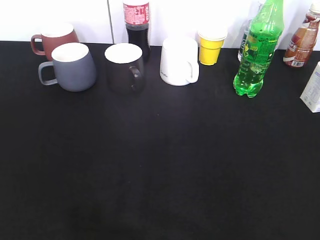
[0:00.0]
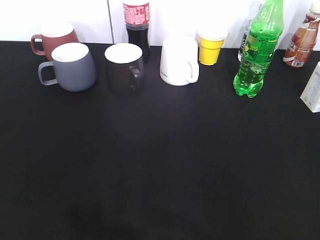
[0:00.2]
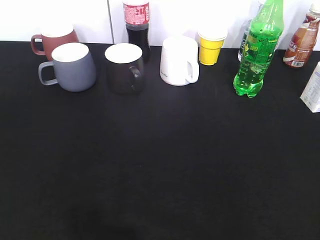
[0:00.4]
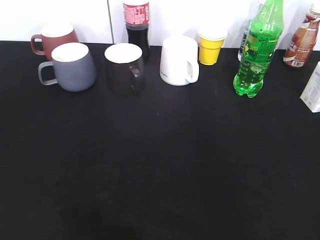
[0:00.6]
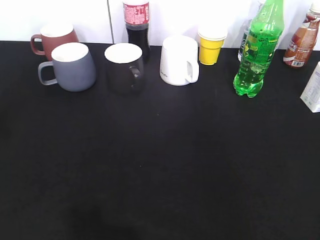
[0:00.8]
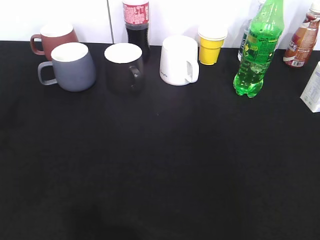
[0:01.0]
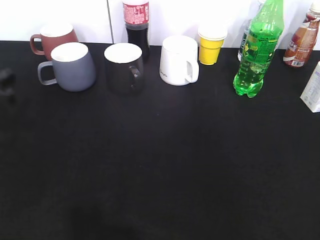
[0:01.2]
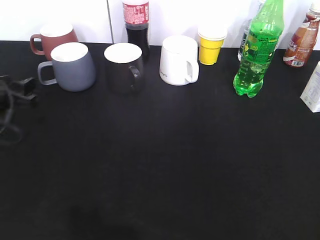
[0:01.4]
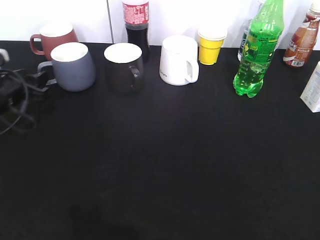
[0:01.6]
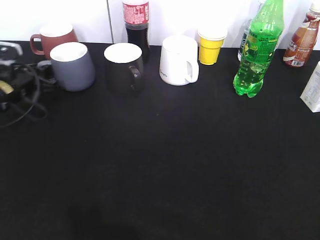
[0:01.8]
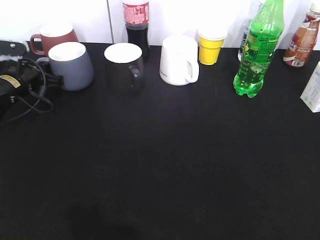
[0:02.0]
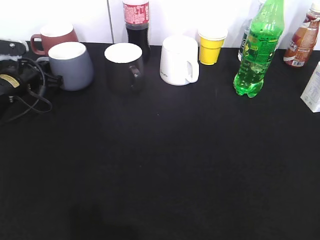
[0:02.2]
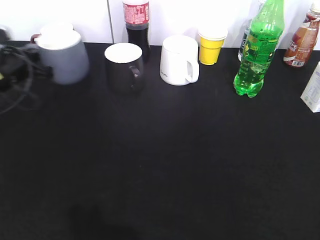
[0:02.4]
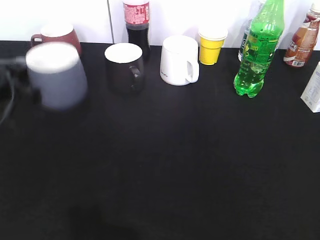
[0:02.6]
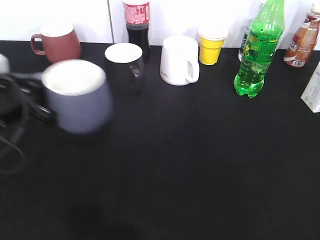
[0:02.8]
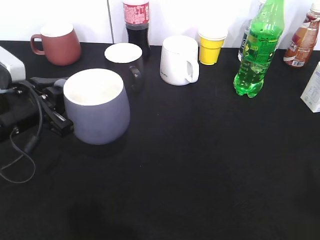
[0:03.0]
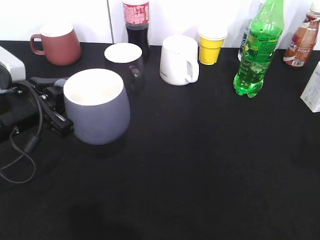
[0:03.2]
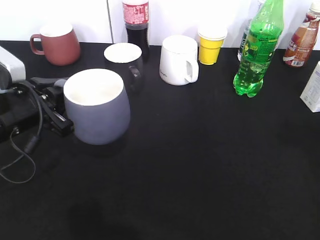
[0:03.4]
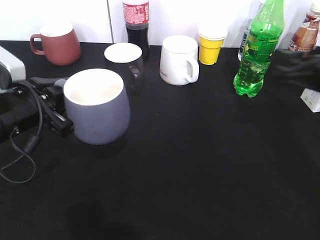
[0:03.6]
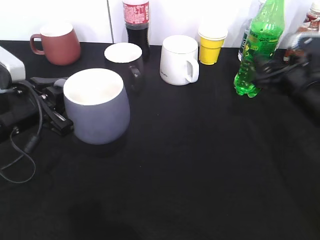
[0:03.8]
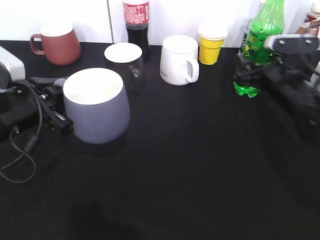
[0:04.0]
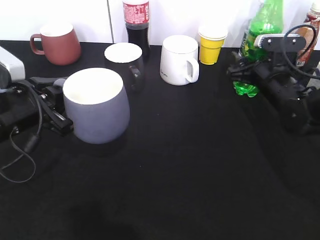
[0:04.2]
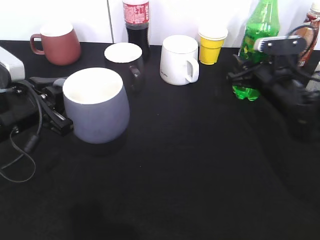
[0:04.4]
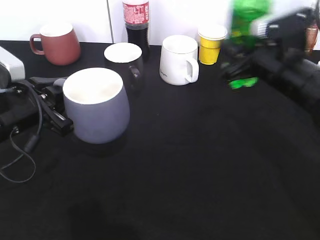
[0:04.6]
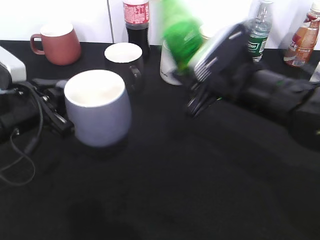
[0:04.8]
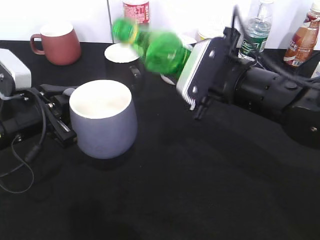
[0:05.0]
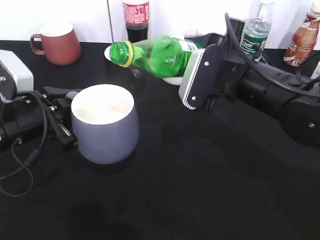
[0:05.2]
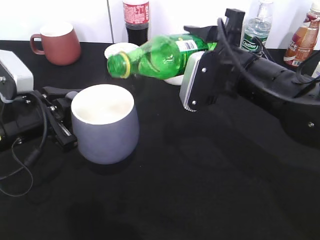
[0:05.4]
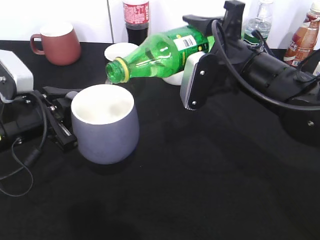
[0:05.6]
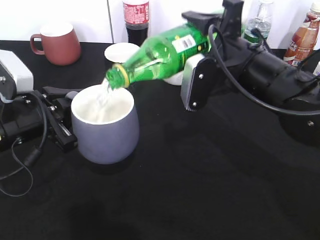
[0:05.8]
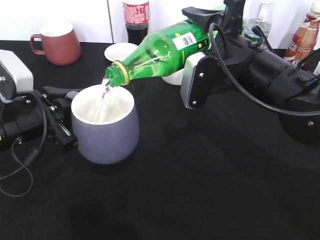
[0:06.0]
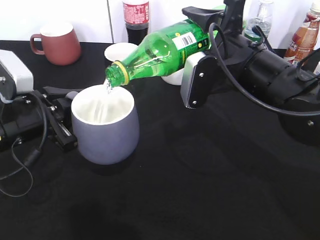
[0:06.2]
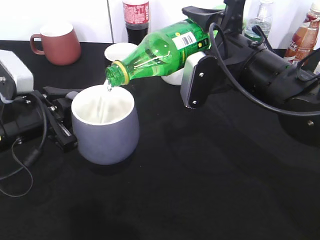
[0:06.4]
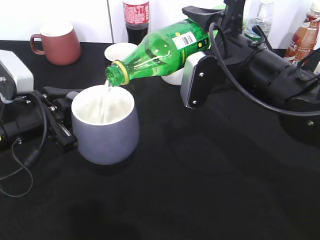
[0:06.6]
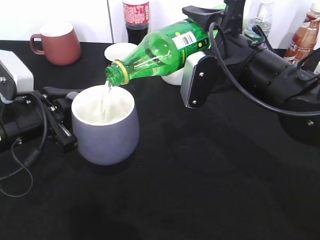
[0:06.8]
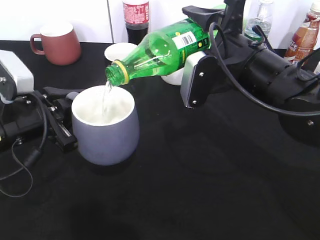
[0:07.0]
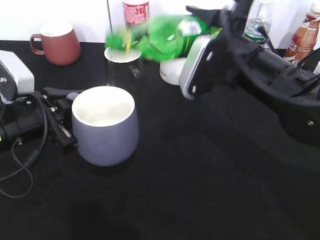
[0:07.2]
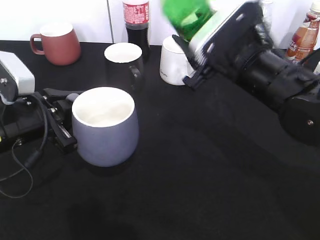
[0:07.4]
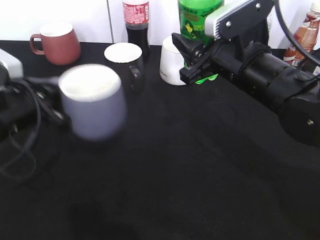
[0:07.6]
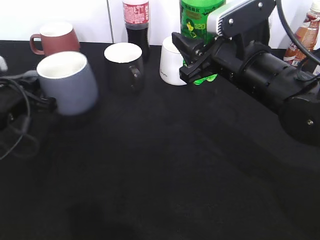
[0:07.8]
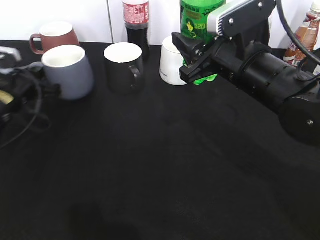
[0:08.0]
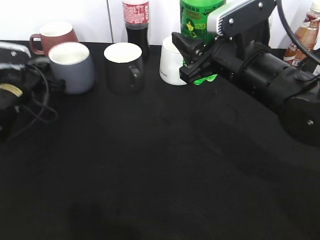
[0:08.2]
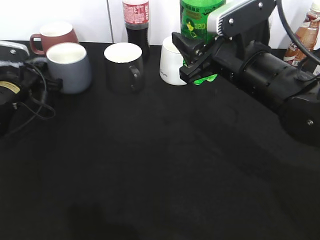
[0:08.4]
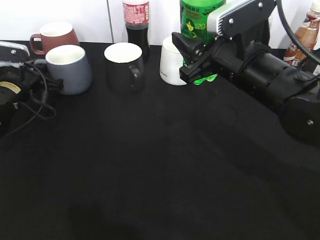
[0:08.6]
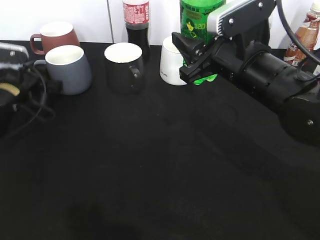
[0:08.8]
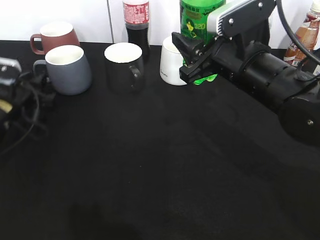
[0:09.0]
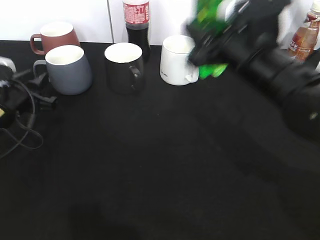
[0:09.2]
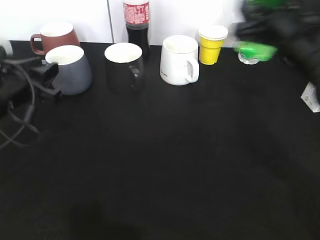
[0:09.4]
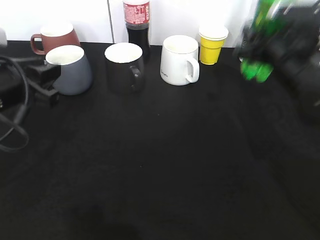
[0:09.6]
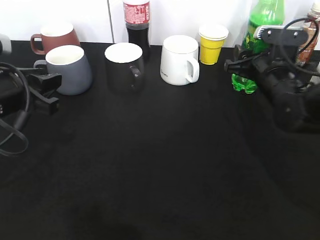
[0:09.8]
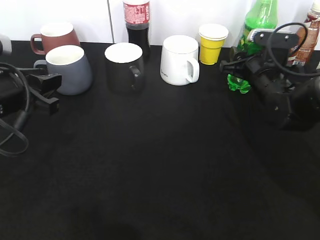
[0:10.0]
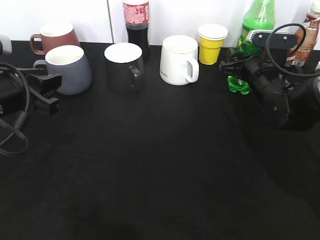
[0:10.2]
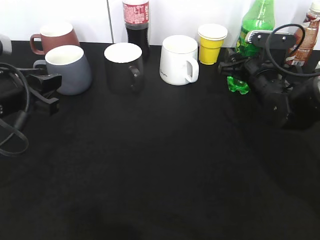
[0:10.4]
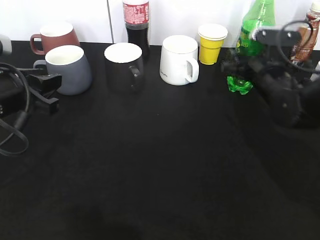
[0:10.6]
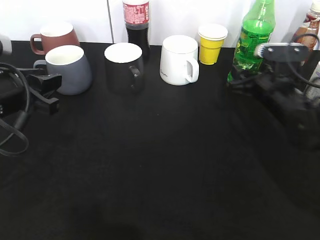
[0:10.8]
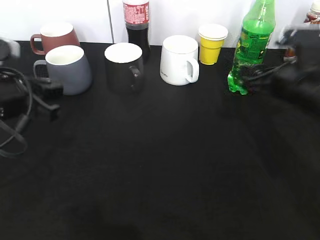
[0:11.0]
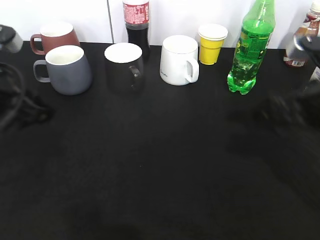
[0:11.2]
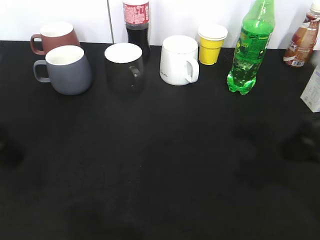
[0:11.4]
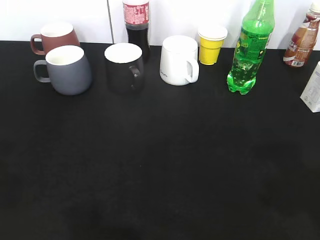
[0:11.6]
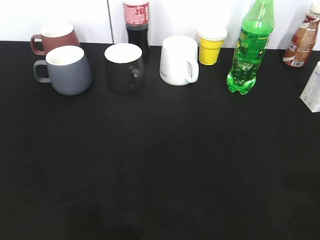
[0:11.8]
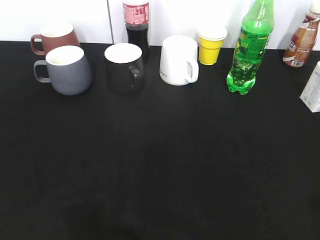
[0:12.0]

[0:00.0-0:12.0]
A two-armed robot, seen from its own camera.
Step, 0:00.0 to 0:02.0: Grasp the grey cup with left gripper.
Step, 0:02.2 to 0:03.2: Lift the grey cup with left gripper.
Step, 0:03.6 to 0:04.2: Grasp the bottle with sprite with right gripper.
Step, 0:04.4 to 0:07.2: Pour the sprite from bottle to cup with right gripper.
Step, 0:07.4 to 0:10.8: Place the sprite bottle on the table with right gripper.
0:00.0 to 0:01.6: The left gripper shifts roughly 40 cm forward and downward.
0:01.6 to 0:03.0: The right gripper heads forward, covering some 5 cm. The left gripper shifts some 15 cm backward and to the right, and closes up.
0:03.0 to 0:04.4: The right gripper shifts roughly 35 cm forward and downward, and closes up.
0:04.4 to 0:06.0: The right gripper travels to the left, upward and backward by approximately 15 cm.
0:07.6 to 0:09.0: The left gripper shifts about 15 cm forward, downward and to the left, and opens.
0:09.0 to 0:10.4: The right gripper heads forward, downward and to the right, covering approximately 15 cm, and opens up; the left gripper travels upward, backward and to the right by some 15 cm.
0:10.4 to 0:12.0: The right gripper moves backward and upward, some 40 cm, while the left gripper moves backward and upward, roughly 25 cm.

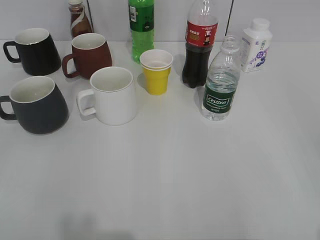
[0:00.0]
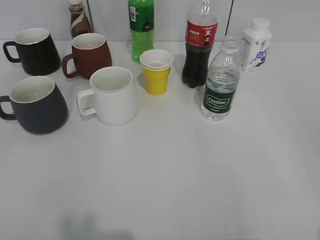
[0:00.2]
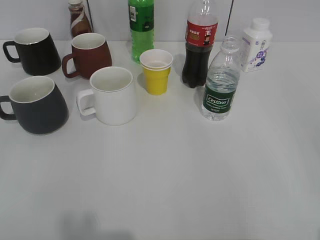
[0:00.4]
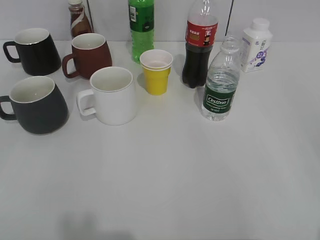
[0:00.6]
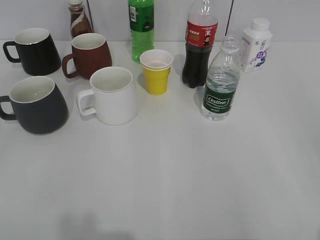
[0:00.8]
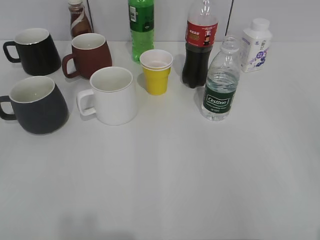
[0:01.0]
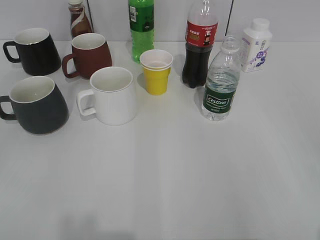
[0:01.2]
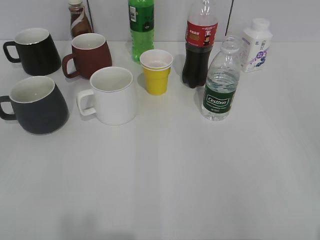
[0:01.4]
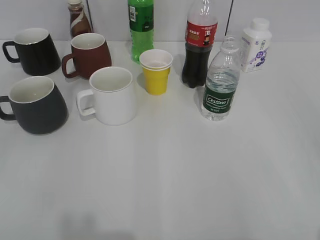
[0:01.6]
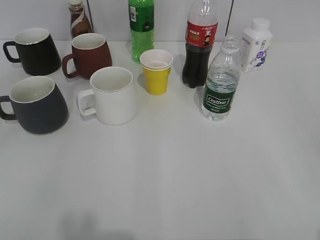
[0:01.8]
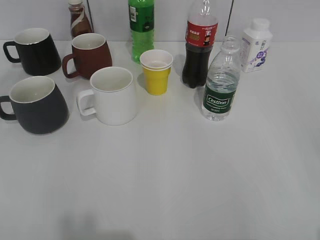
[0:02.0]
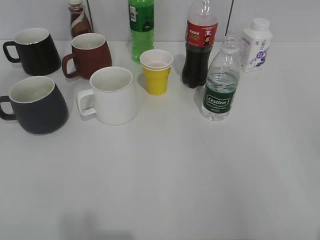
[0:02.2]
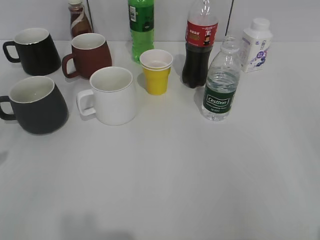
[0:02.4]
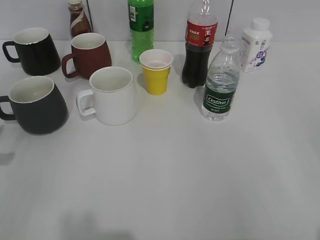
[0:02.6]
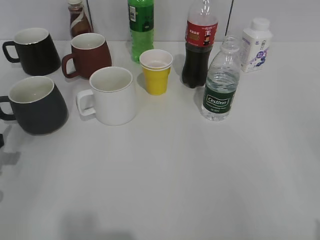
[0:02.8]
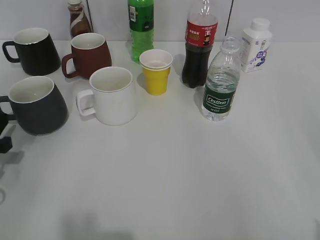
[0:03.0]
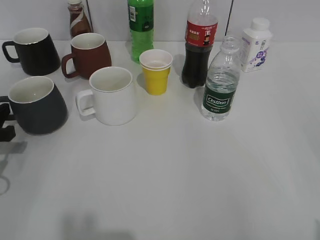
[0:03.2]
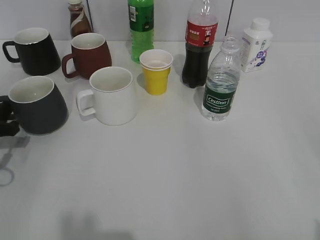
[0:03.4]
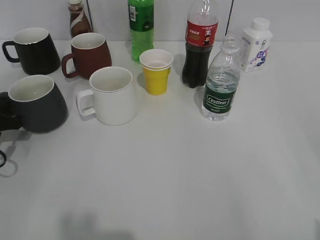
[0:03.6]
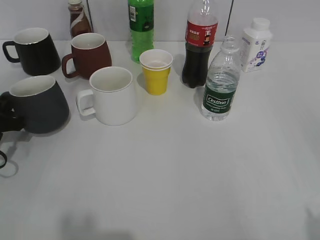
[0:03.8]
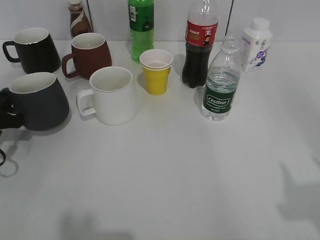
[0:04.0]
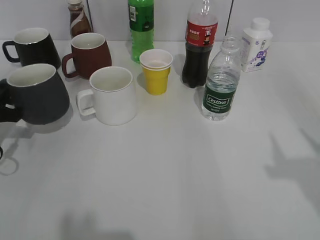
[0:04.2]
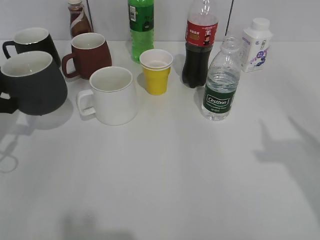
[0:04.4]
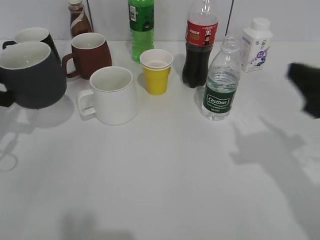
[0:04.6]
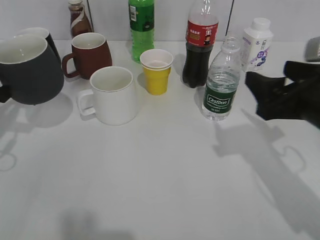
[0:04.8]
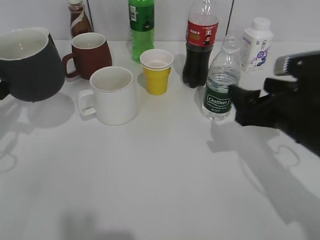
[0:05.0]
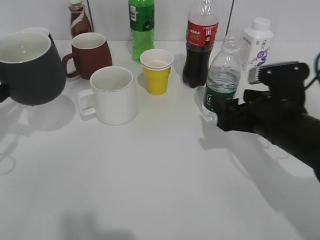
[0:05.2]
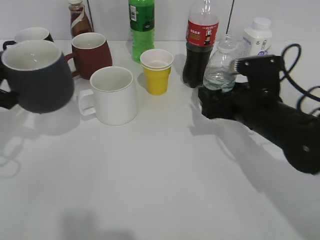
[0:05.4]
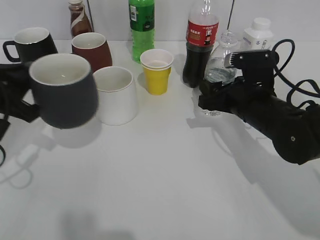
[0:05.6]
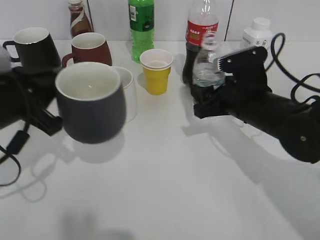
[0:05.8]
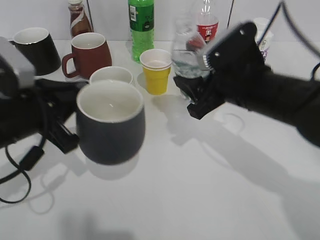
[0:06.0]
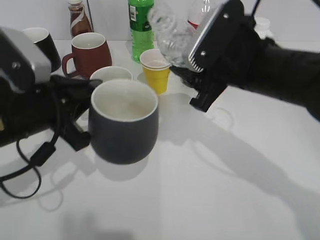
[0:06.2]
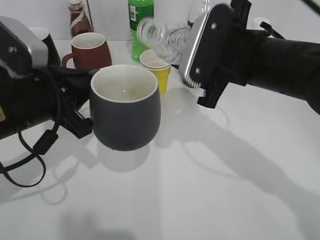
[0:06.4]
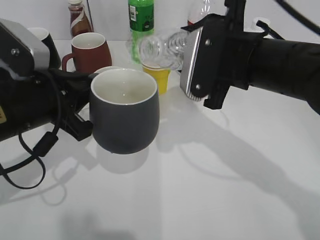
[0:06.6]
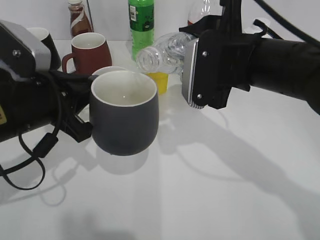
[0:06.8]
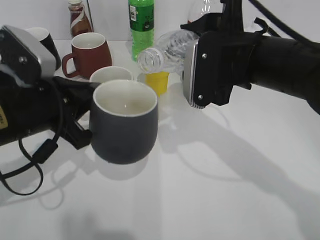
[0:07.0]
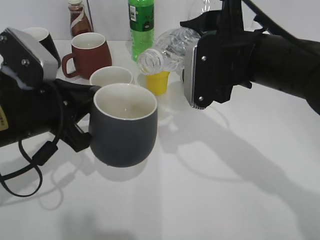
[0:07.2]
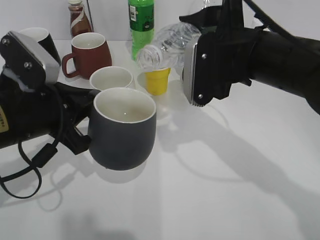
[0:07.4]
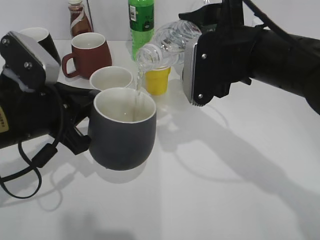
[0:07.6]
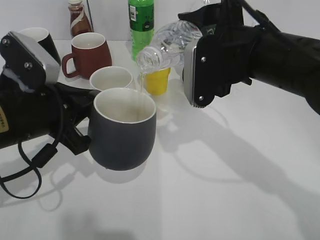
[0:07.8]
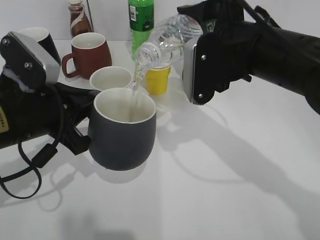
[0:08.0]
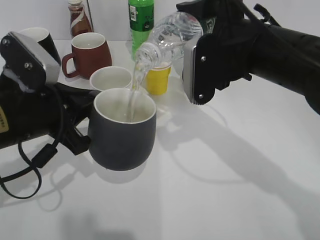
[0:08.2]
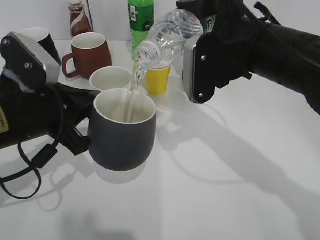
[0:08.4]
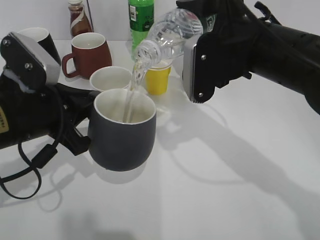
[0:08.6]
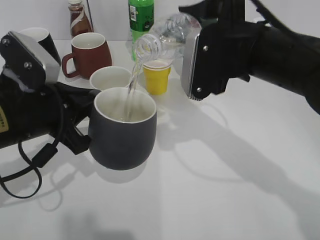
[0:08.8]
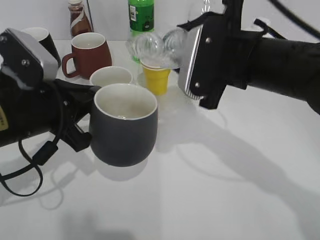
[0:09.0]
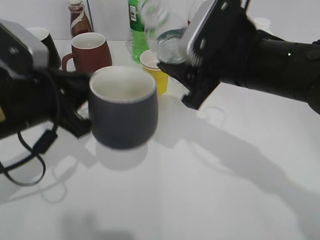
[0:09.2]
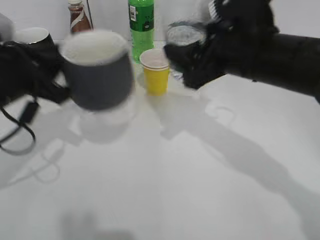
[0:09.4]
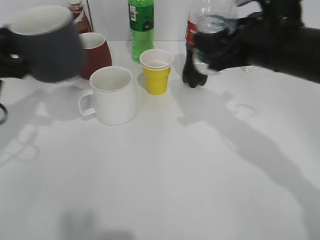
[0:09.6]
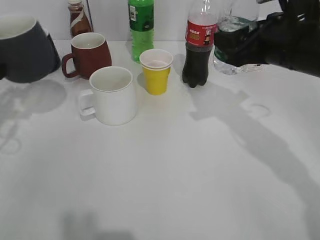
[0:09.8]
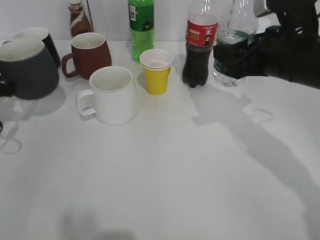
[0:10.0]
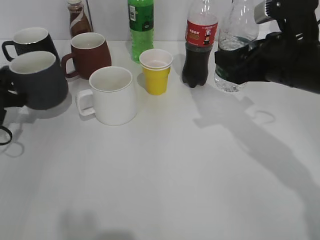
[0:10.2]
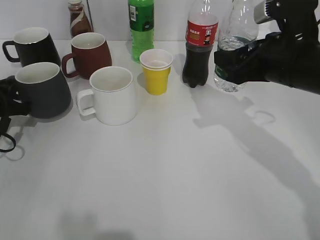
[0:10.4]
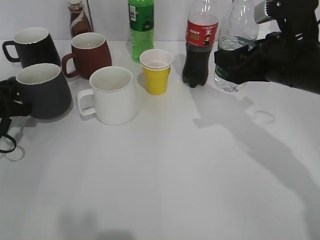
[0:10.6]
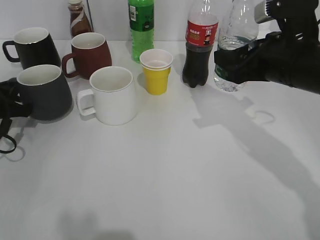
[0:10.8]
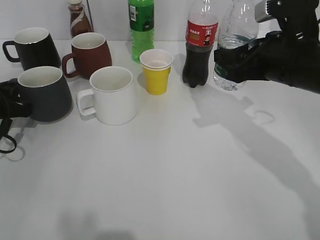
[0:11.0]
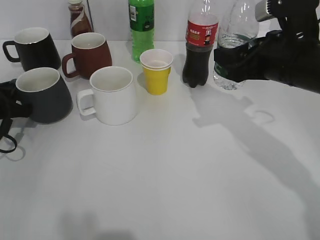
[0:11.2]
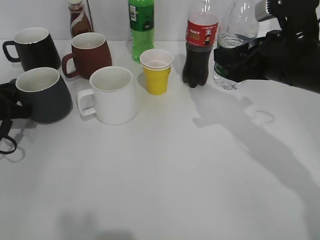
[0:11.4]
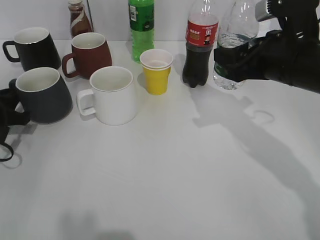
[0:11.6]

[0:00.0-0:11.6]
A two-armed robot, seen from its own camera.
Step, 0:03.8 to 0:04.4: Lift the black cup with left gripper.
Step, 0:04.6 to 0:05.4: Grasp the bottle with water with right gripper.
Step, 0:05.6 to 0:09.4: Pour the water from bottle to cup with right gripper.
0:01.4 to 0:02.8: The left gripper travels forward and downward by some 25 cm.
0:02.8 to 0:04.4: The left gripper goes about 5 cm forward, and closes.
0:04.4 to 0:05.8: The right gripper heads downward, forward and to the left, covering roughly 25 cm, and opens, then closes again. The left gripper travels to the right by roughly 10 cm.
0:05.8 to 0:07.2: The right gripper moves upward, roughly 10 cm.
0:07.2 to 0:08.8: The grippers stay close to where they were, moving slightly.
0:08.8 to 0:10.2: The right gripper travels to the right by some 5 cm; the left gripper shifts approximately 20 cm to the left, forward and downward.
0:10.2 to 0:11.6: The grippers move only a little.
